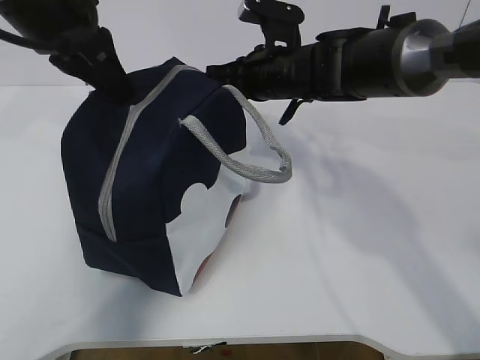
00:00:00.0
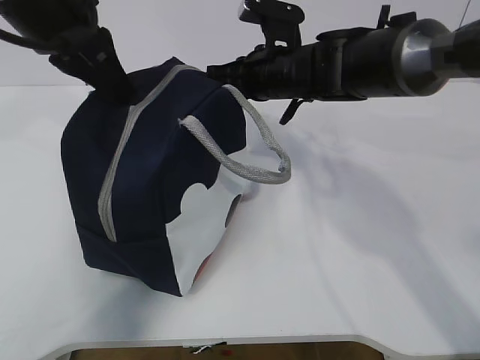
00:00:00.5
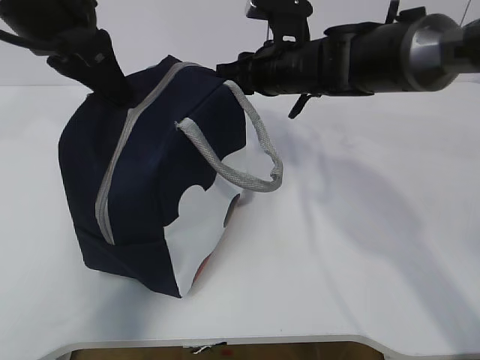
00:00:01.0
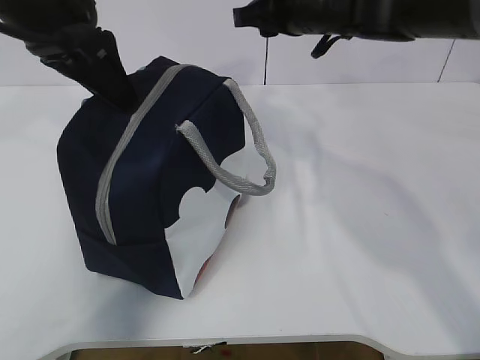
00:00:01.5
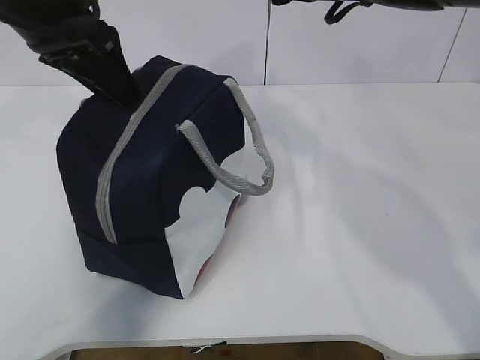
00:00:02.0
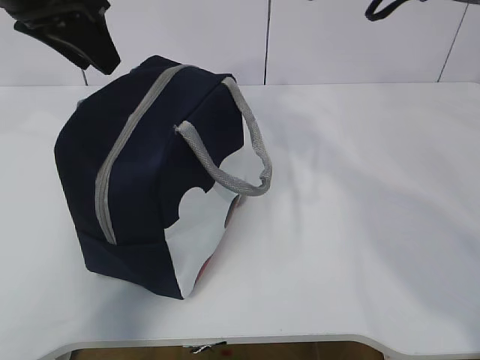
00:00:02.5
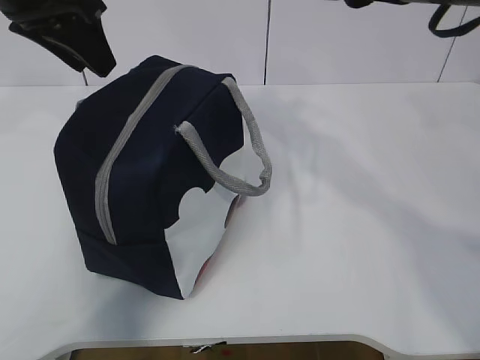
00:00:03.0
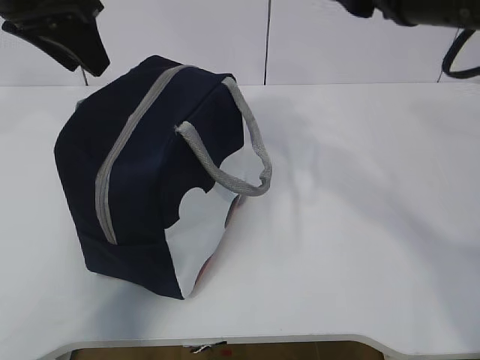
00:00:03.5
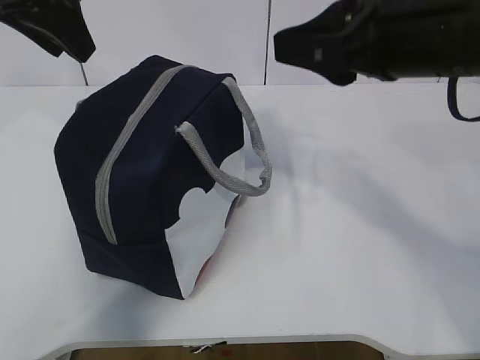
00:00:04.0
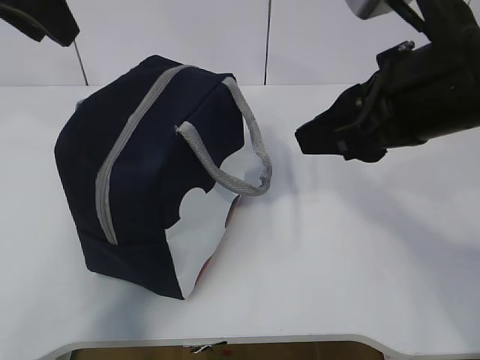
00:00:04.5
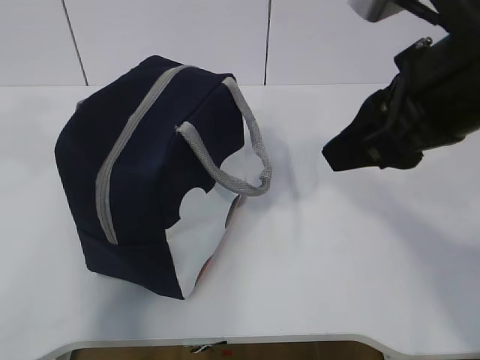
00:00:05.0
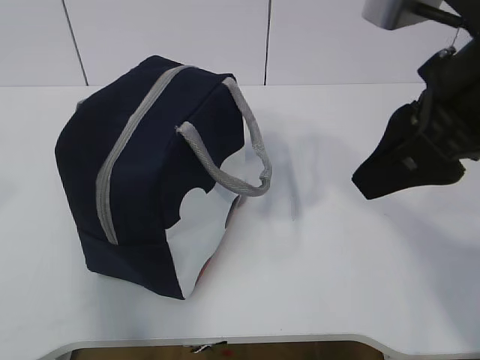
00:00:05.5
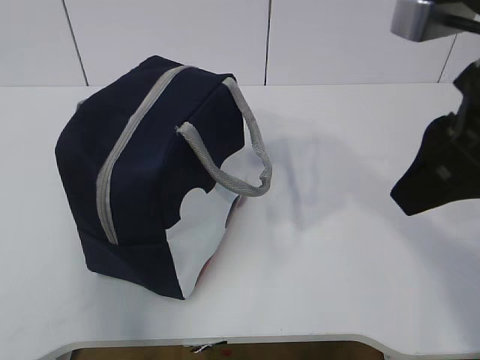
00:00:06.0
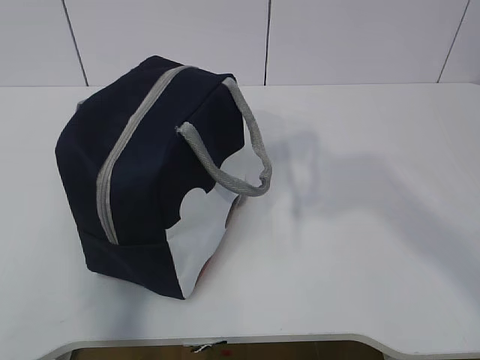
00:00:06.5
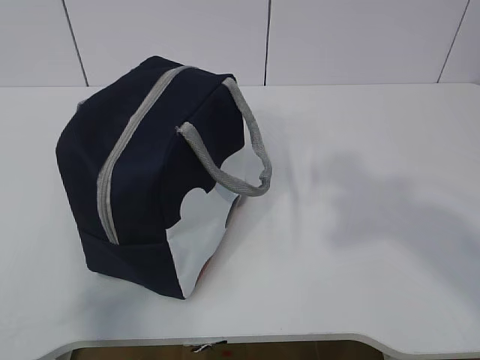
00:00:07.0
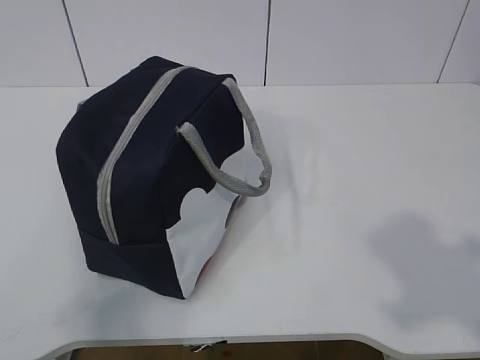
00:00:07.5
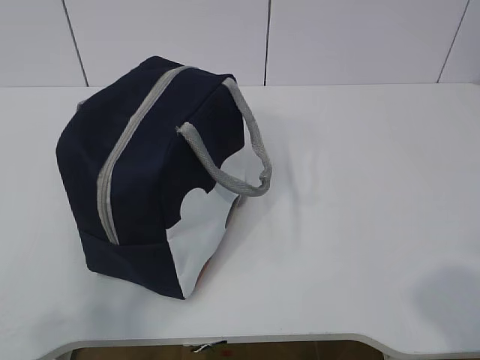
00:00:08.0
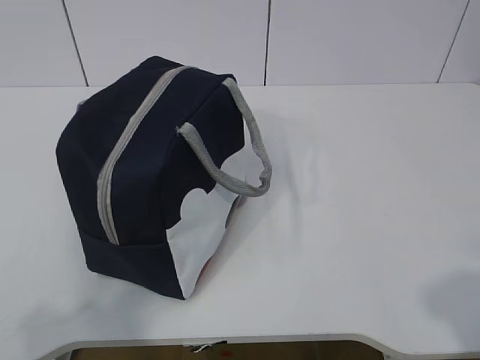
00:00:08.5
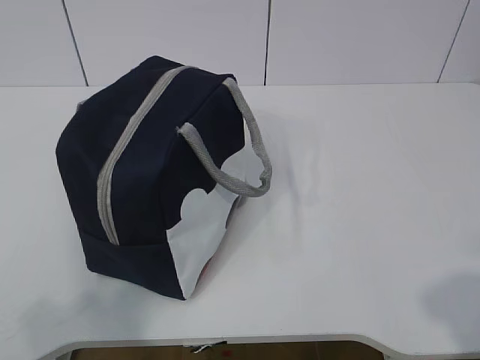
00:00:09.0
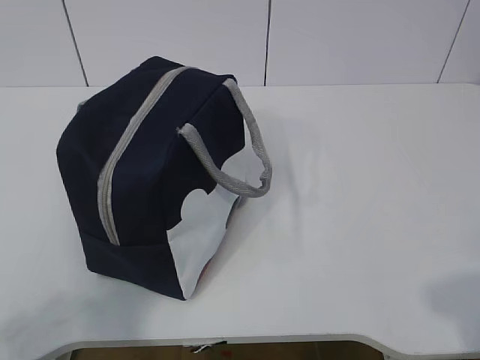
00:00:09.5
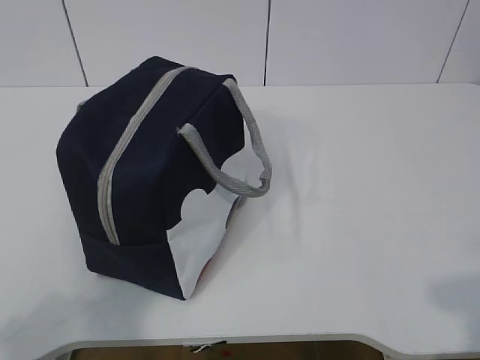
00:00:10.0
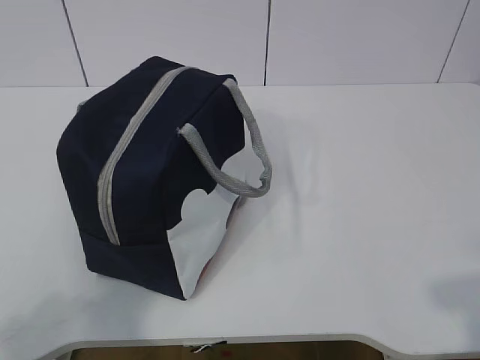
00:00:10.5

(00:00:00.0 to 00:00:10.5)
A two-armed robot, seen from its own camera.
00:00:00.0 - 00:00:02.0: The right gripper goes some 10 cm upward, and opens its fingers, while the left gripper opens up.
00:00:02.0 - 00:00:04.0: The right gripper goes roughly 15 cm backward.
00:00:04.0 - 00:00:06.5: The right gripper is displaced backward and to the right by some 10 cm. The left gripper goes approximately 30 cm backward.
00:00:06.5 - 00:00:08.5: The left gripper travels downward by some 10 cm.
